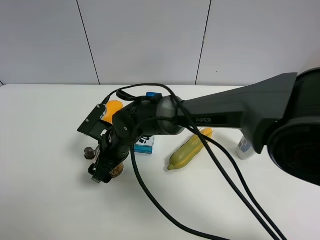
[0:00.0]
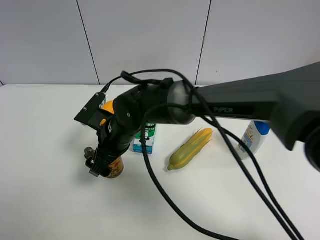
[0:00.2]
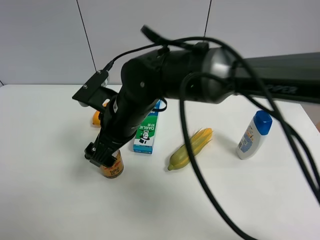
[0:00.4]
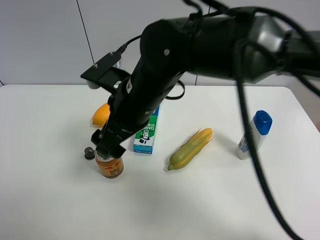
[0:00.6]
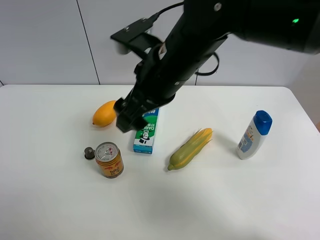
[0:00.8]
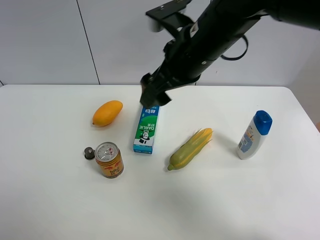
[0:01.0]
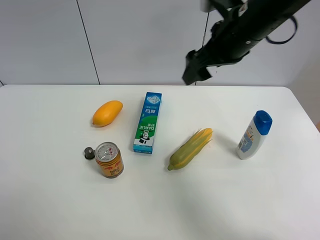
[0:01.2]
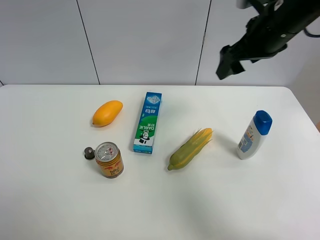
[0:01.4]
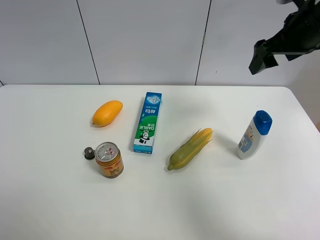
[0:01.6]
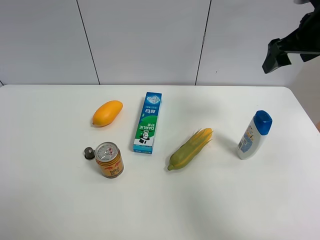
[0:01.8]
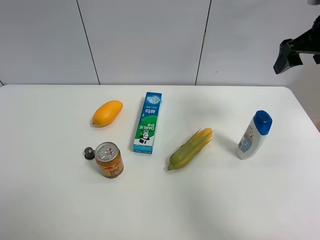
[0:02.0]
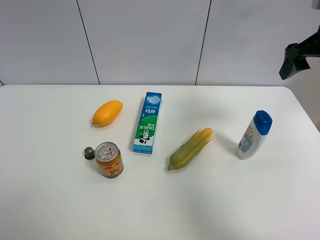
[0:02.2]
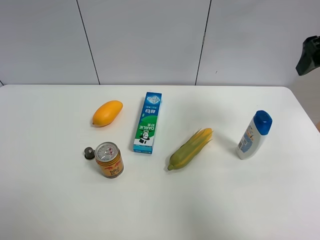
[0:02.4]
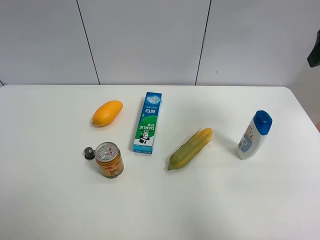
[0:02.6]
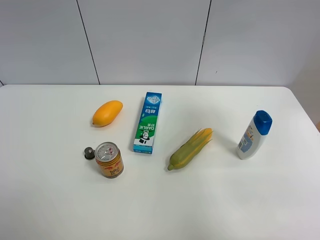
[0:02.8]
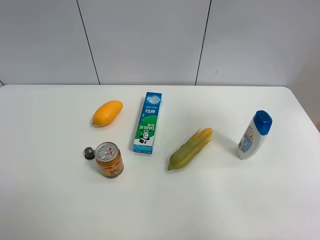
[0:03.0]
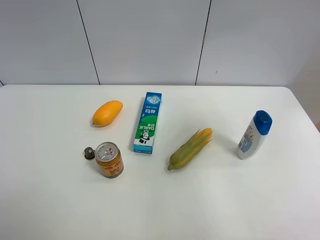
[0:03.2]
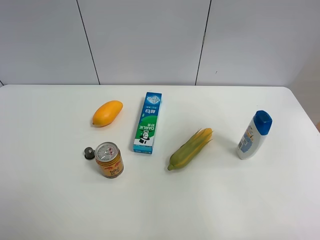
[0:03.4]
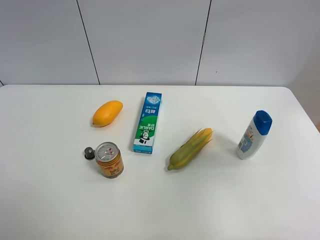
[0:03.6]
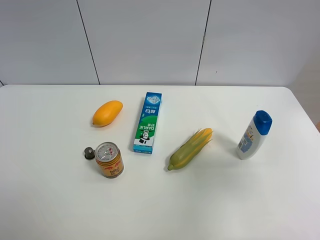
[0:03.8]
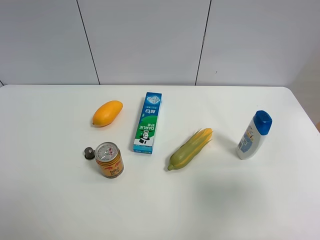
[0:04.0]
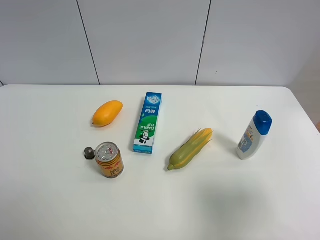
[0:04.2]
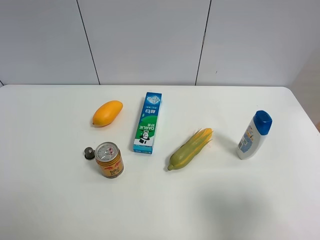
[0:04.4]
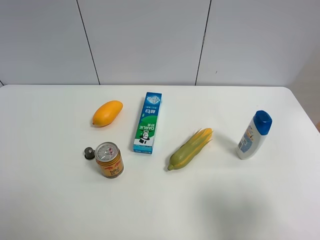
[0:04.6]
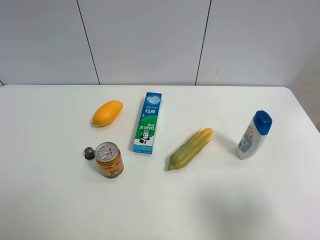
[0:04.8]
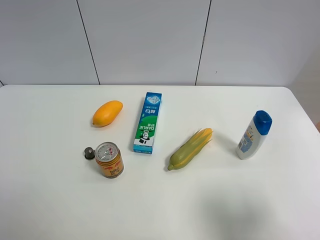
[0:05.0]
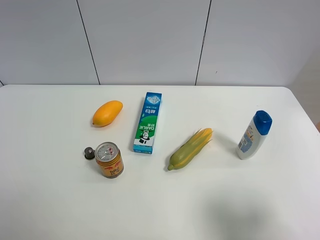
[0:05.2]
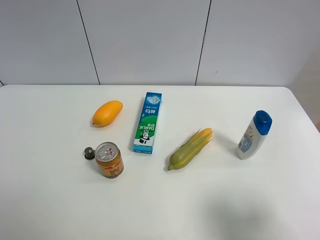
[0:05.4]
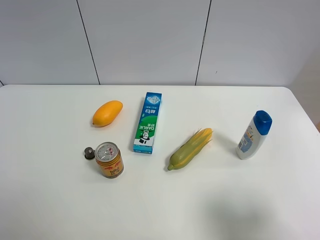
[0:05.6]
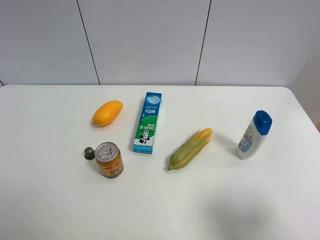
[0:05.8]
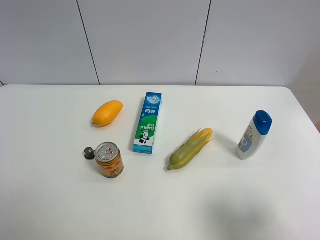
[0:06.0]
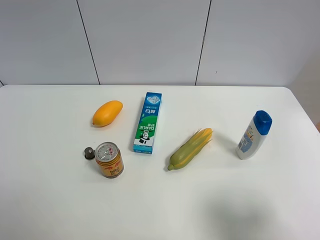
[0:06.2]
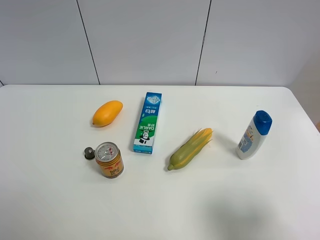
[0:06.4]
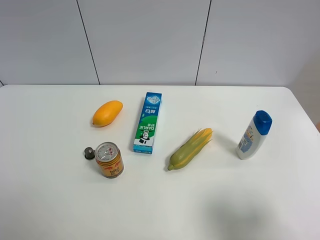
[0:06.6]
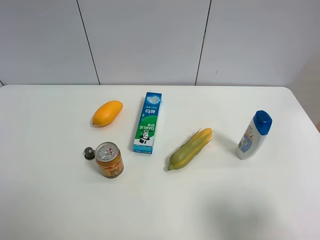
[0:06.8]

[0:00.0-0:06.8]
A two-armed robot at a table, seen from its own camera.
Task of the whole recording: the gripper move the object.
0:00.0 to 0:01.4: The right gripper travels to the right and upward by some 35 cm.
0:01.4 to 0:02.8: The right gripper heads to the right, backward and upward, covering about 15 cm.
0:02.8 to 0:04.0: The right gripper goes some 20 cm backward and downward.
0:04.0 to 0:05.4: The right gripper travels downward by some 10 cm.
0:05.4 to 0:06.8: Both grippers stay about where they are.

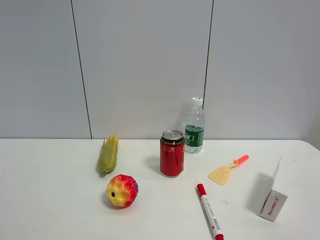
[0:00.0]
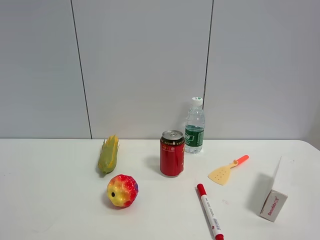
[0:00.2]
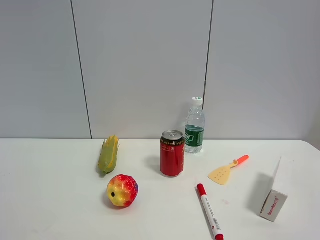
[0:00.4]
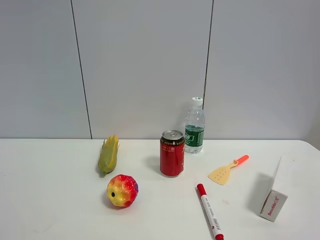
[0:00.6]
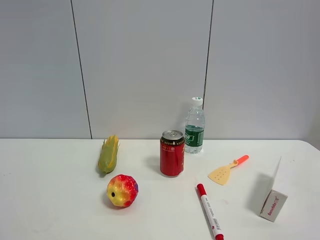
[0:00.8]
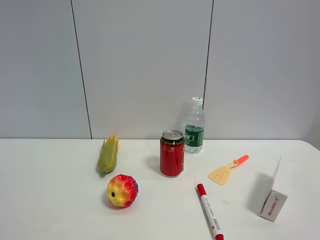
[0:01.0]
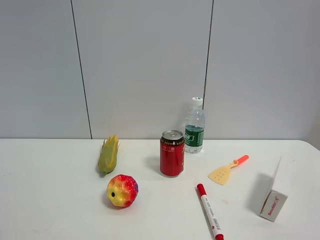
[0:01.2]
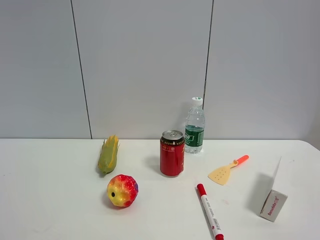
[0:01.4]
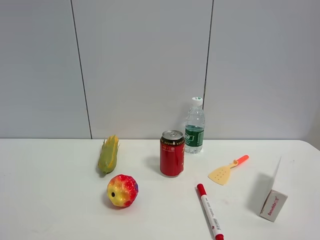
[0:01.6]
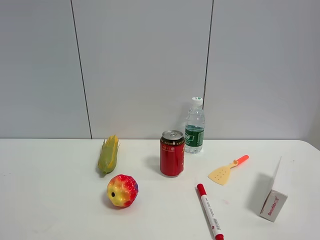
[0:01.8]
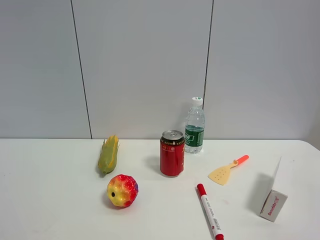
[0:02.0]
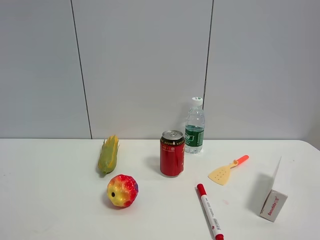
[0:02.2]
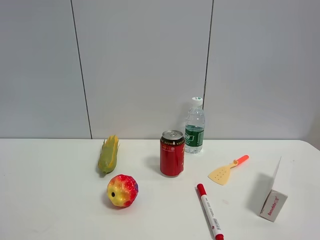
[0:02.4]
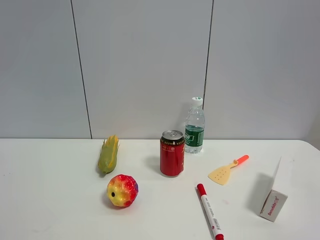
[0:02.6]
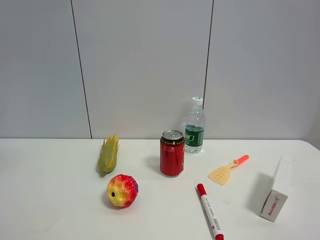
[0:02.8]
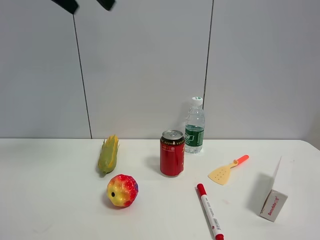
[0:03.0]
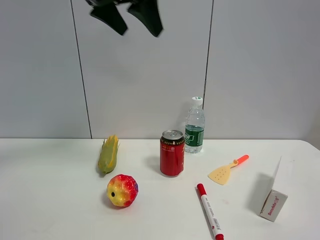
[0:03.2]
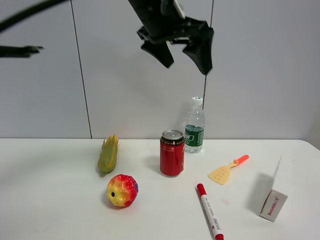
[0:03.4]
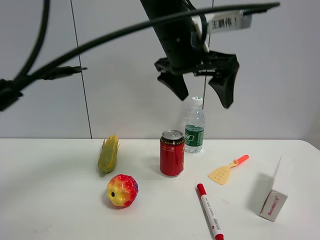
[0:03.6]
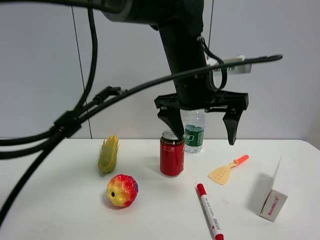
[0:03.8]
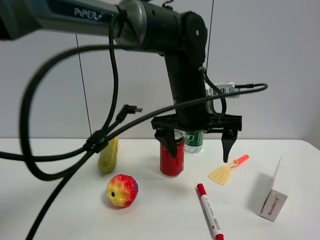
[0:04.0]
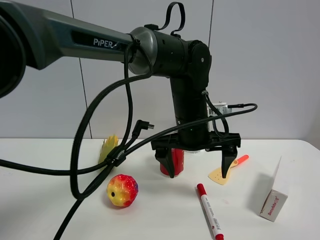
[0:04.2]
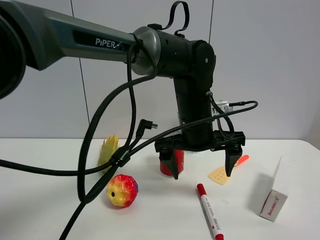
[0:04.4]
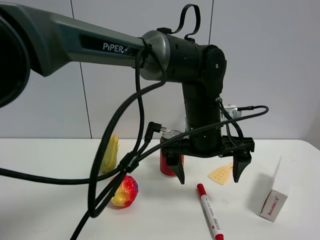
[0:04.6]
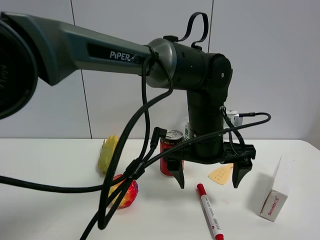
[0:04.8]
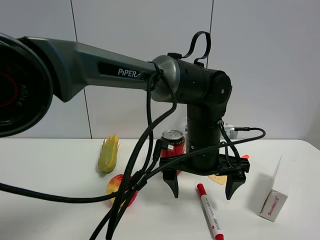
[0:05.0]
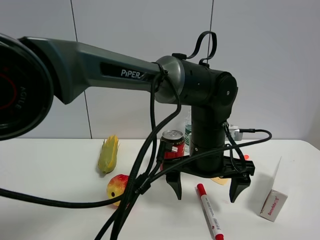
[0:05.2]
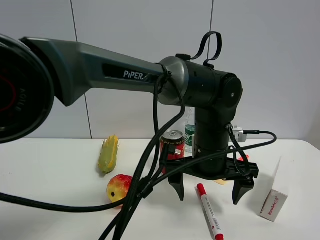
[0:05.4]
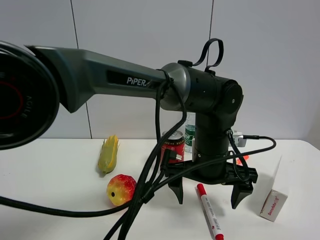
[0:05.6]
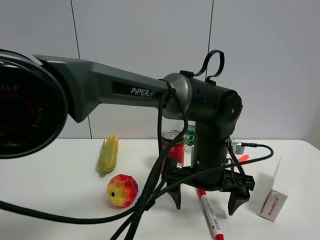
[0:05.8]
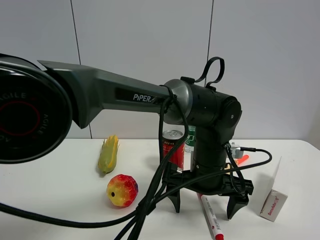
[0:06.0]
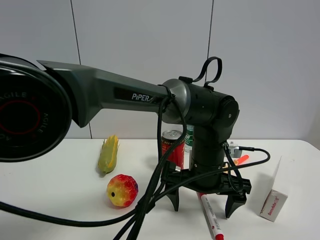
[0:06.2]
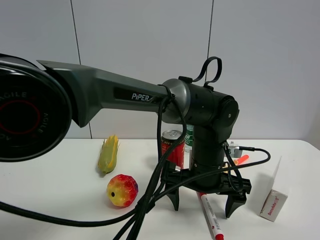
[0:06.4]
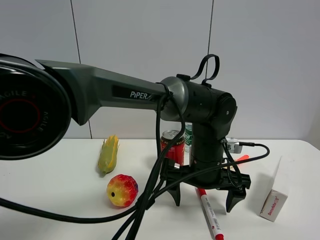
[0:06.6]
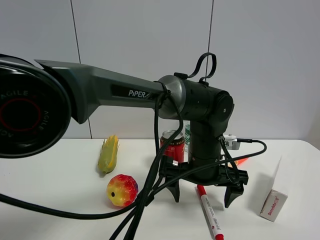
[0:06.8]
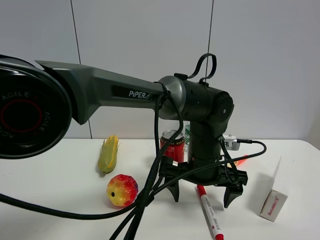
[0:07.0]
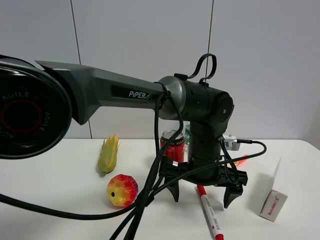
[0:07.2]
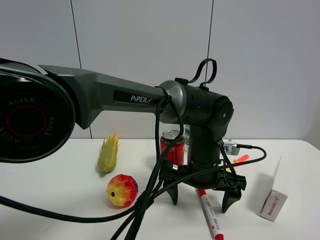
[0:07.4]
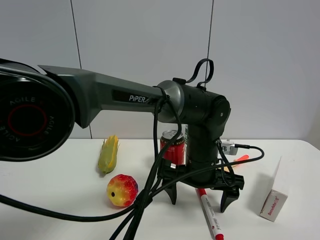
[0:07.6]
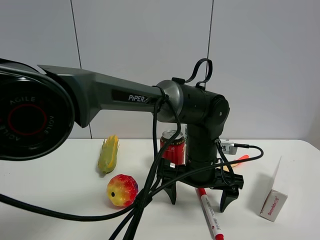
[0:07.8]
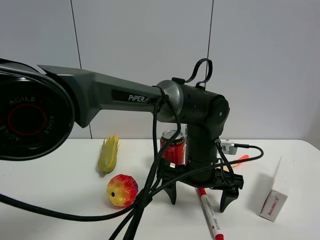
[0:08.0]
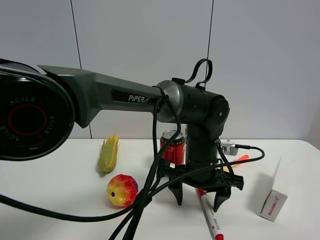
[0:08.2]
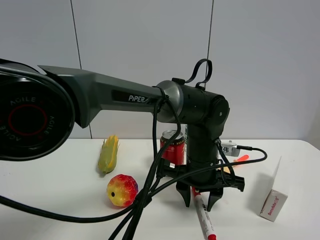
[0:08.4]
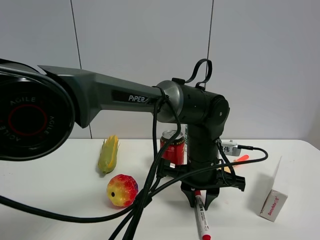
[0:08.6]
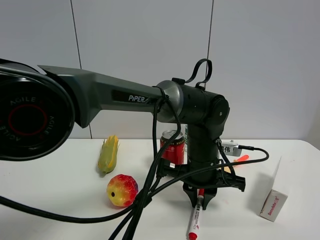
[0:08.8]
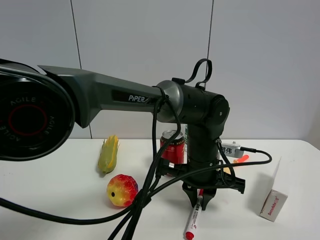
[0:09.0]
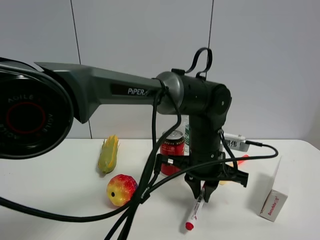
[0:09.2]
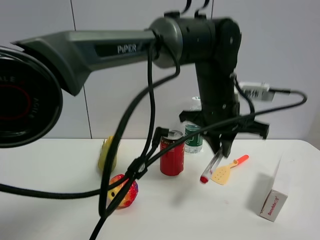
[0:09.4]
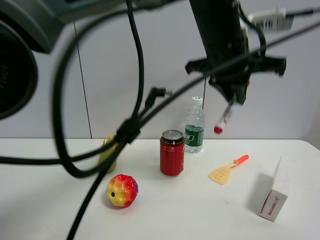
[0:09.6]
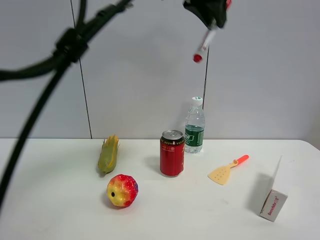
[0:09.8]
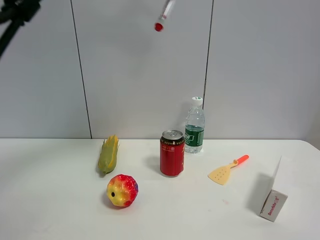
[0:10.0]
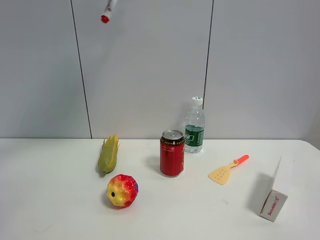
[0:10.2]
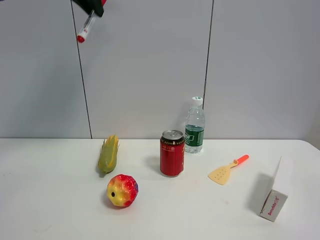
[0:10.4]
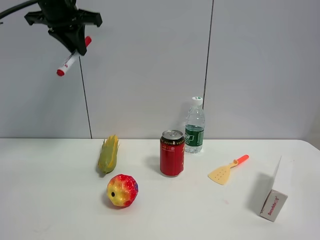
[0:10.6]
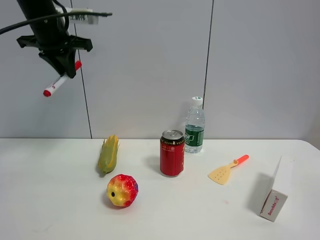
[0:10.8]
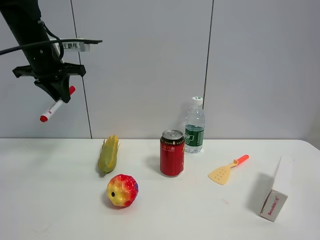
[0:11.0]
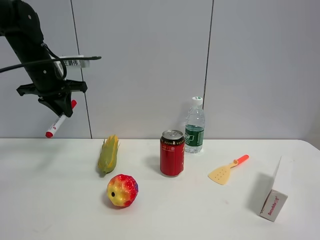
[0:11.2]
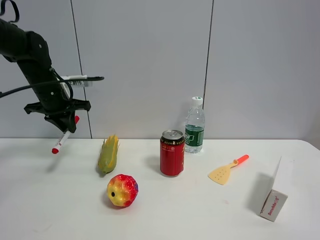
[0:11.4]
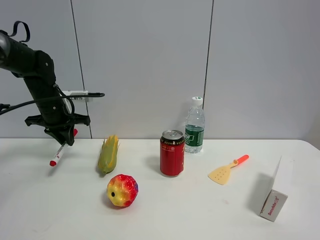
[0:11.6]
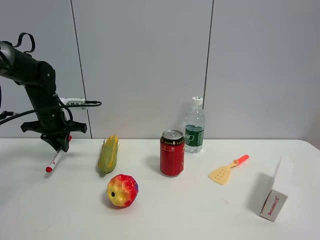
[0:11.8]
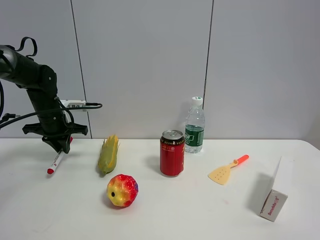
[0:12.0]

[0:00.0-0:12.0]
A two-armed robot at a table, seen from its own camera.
Task of the whole recording: the gripper move the object.
Step, 0:00.0 to 0:08.8: Grasp the red marker pen with the left gripper.
0:00.0 to 0:01.6: The two grippers keep their place.
0:01.6 to 0:03.0: The left gripper travels forward, upward and to the right by approximately 40 cm.
0:03.0 to 0:04.4: The left gripper heads downward and to the right, covering some 35 cm.
0:04.4 to 0:06.0: The left gripper is displaced downward by approximately 5 cm.
0:06.0 to 0:07.6: The grippers move only a little.
0:07.6 to 0:09.0: The left gripper closes.
0:09.0 to 0:10.4: The left gripper shifts approximately 40 cm upward and to the left.
0:10.4 to 0:12.0: The left gripper travels downward by some 30 cm.

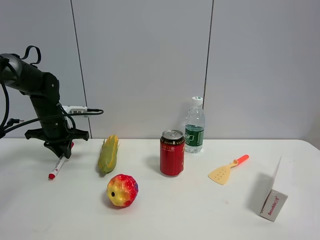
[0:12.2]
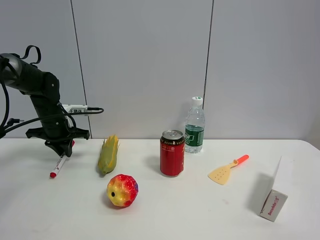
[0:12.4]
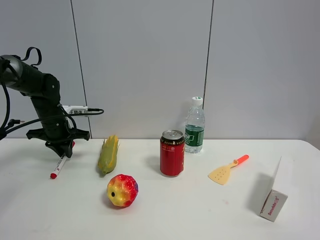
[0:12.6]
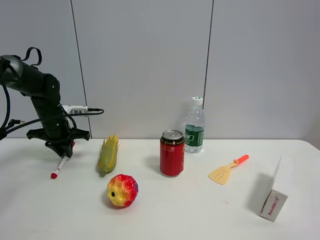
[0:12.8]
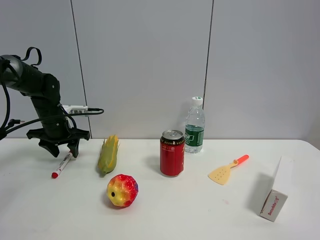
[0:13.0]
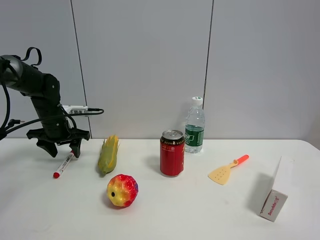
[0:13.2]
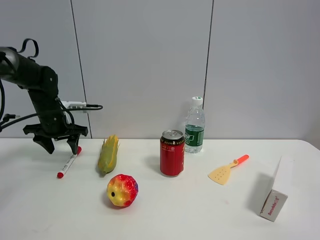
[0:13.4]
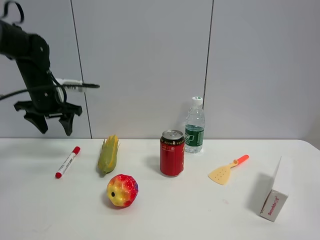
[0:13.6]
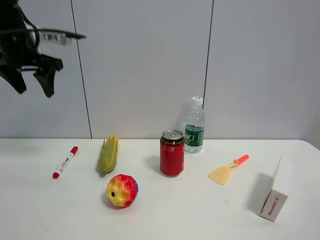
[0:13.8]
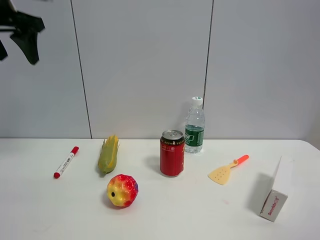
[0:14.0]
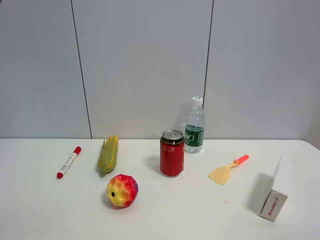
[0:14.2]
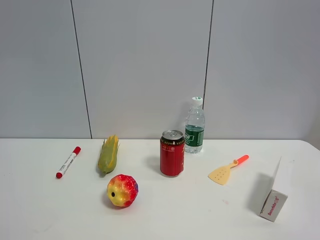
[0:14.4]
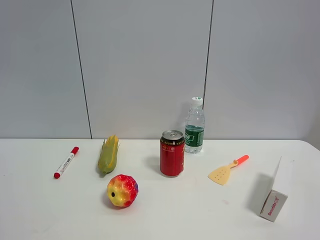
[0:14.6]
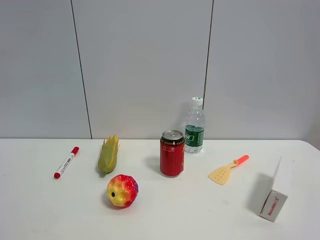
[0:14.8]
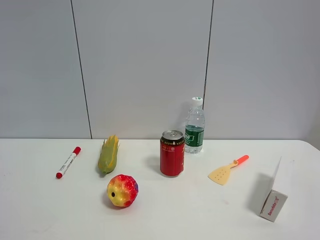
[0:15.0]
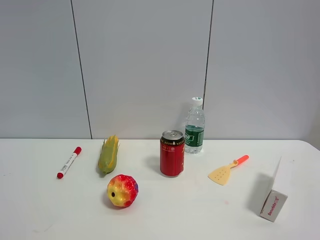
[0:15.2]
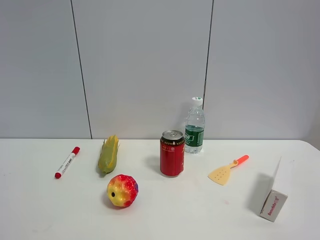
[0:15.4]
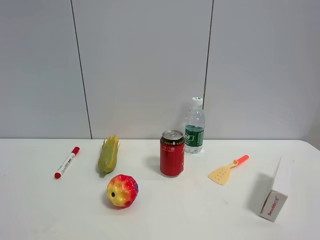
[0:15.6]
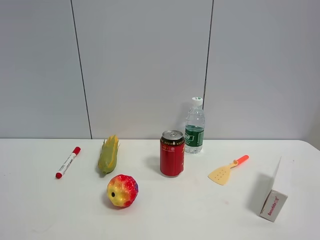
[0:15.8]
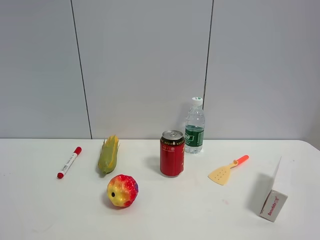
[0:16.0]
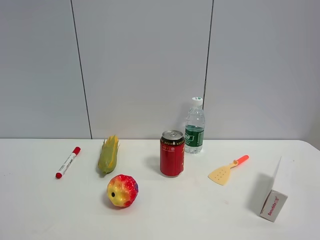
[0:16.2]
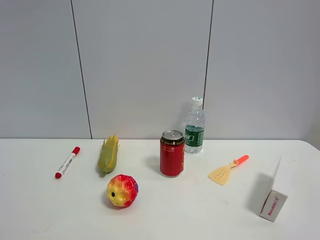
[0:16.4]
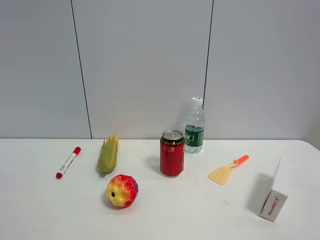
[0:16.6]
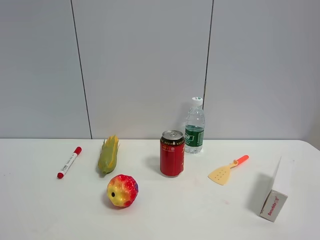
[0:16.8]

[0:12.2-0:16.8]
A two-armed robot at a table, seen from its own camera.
Task of the whole recording: the gripper move the object.
0:12.2 to 0:13.8: The left gripper travels upward by about 20 cm, and opens its fingers.
0:13.8 to 0:15.2: The left gripper travels backward by approximately 40 cm.
